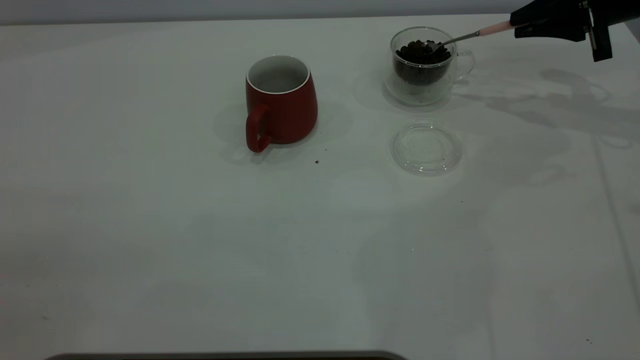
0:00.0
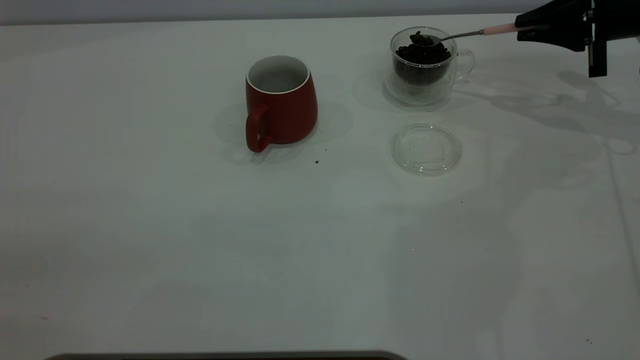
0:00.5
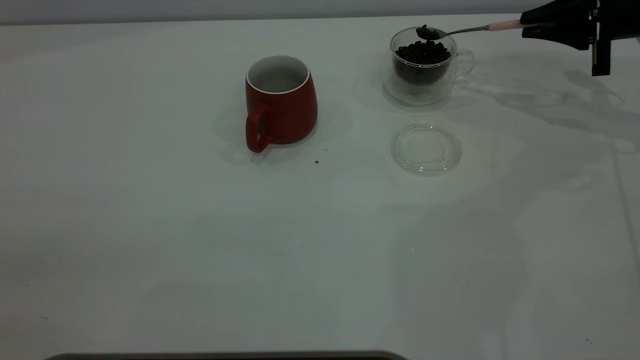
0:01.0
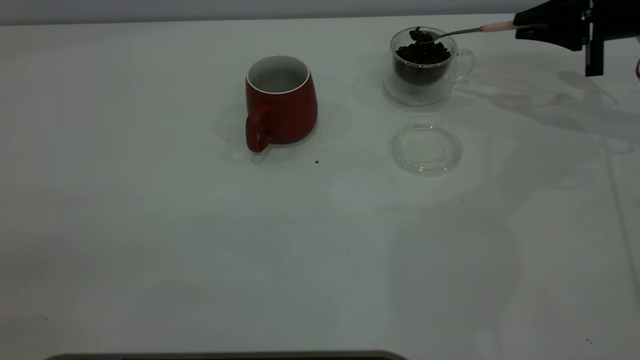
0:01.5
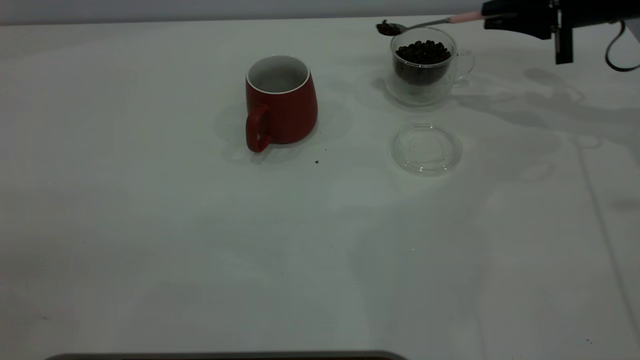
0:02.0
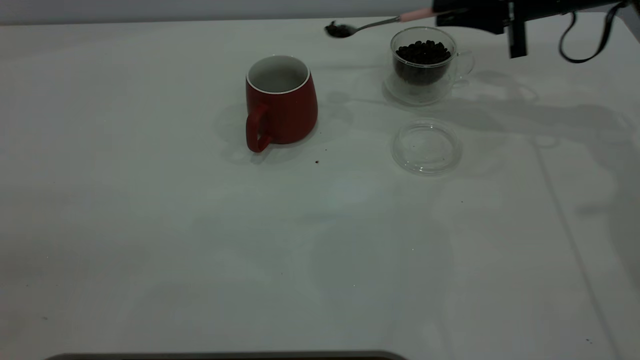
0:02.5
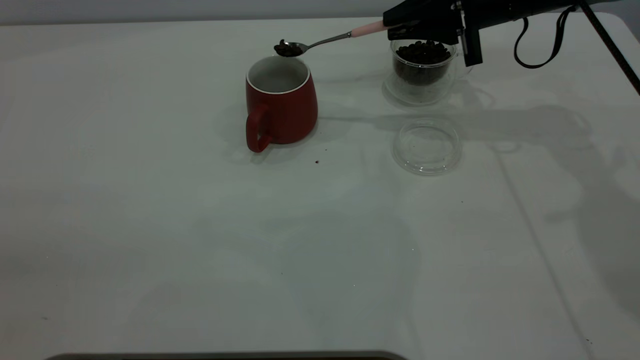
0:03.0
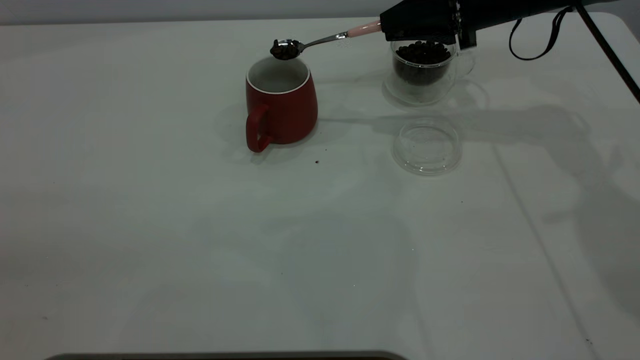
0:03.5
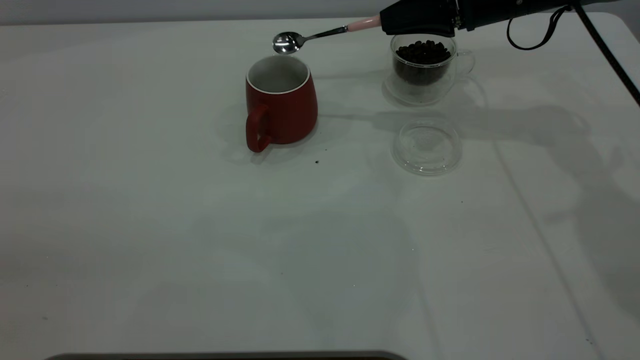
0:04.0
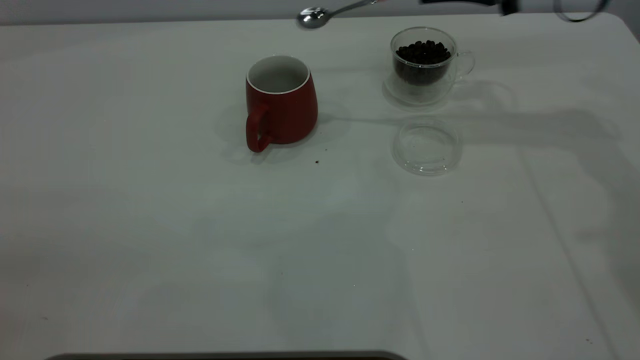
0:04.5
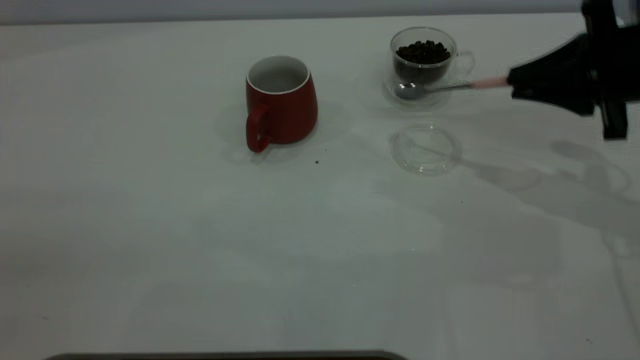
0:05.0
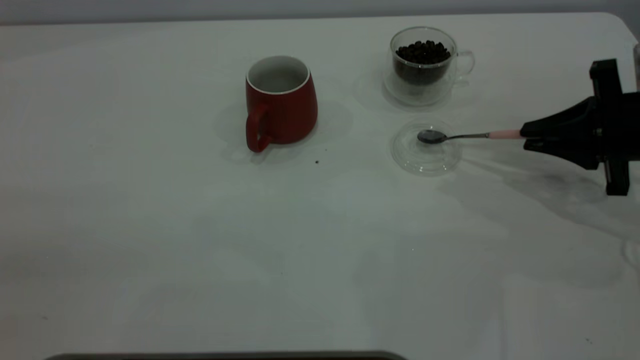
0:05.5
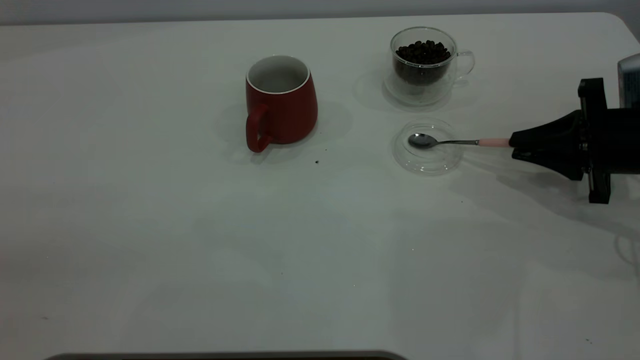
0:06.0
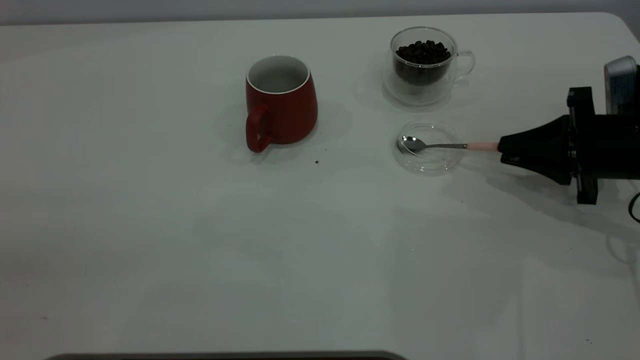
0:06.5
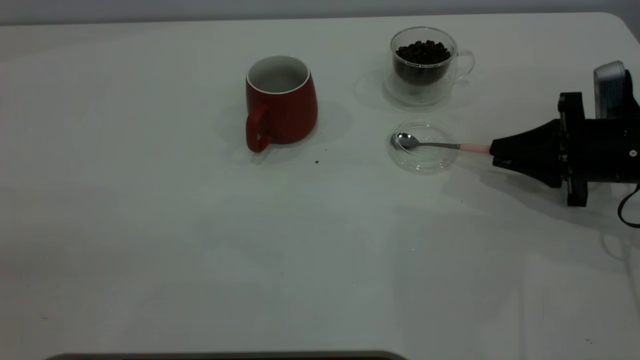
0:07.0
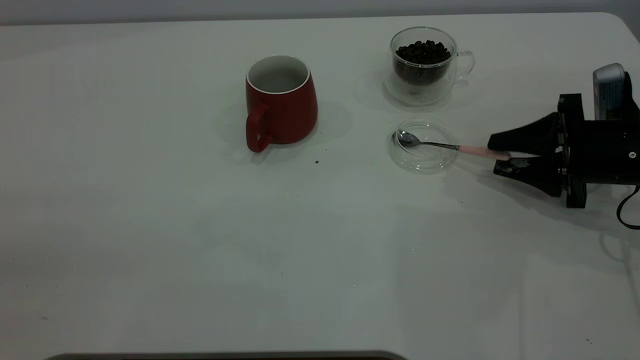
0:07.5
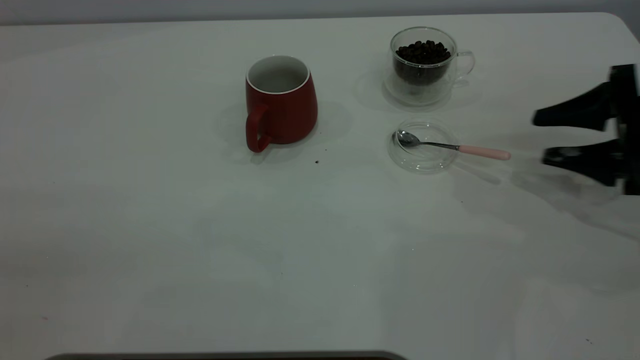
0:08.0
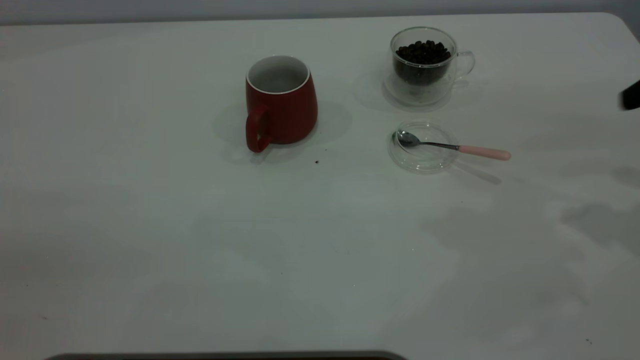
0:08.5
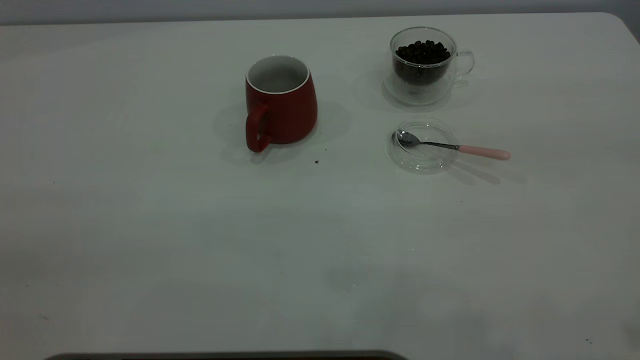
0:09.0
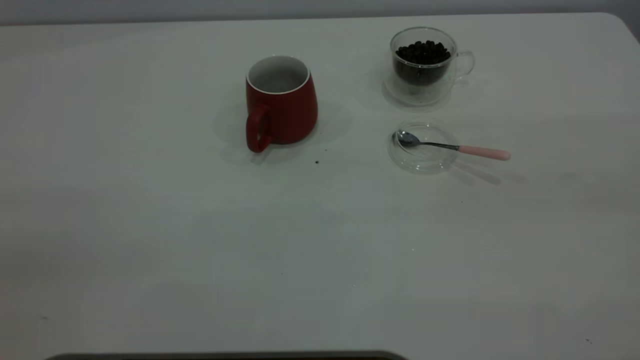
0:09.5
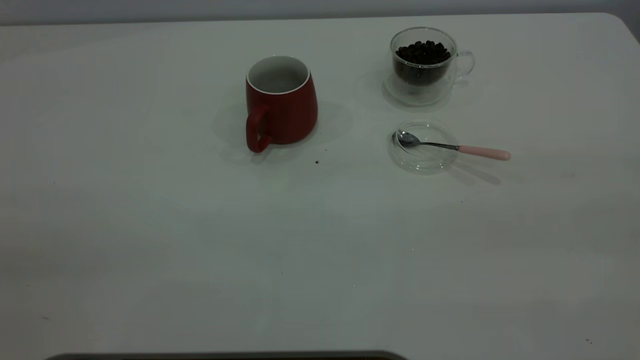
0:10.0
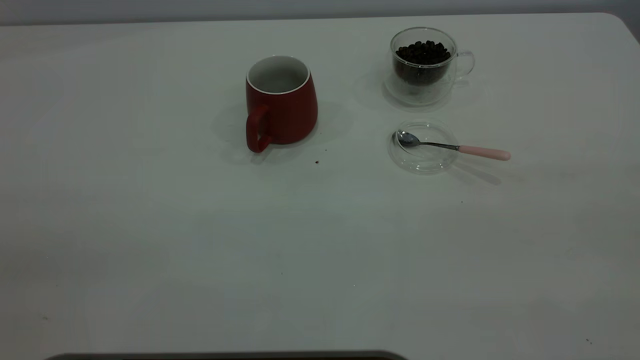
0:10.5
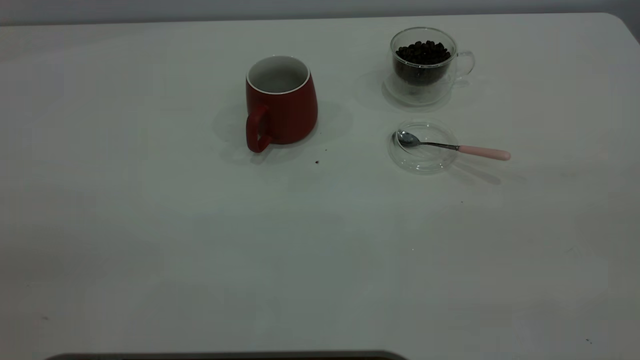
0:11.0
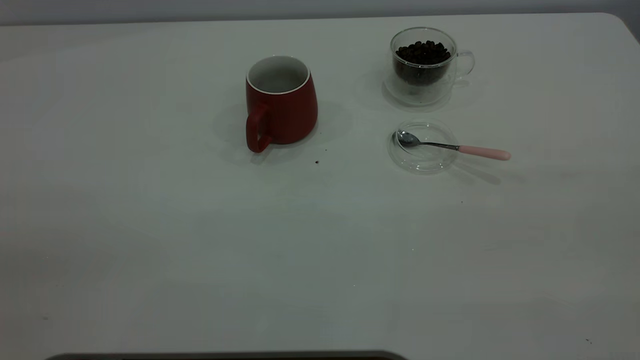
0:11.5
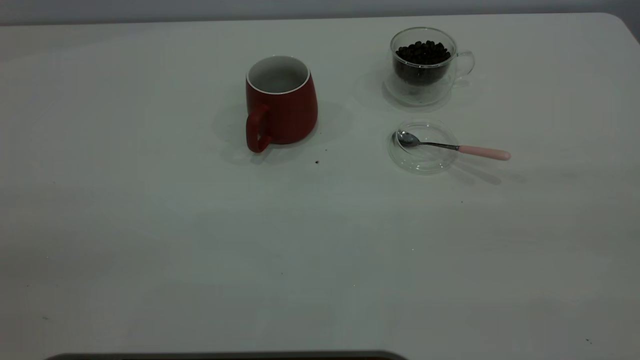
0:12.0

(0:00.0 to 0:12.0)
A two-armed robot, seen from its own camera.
Task of the whole recording: the left gripper place the red cup in the center of the table, the right gripper take the pink spoon from the cup lid and scoop out the coffee beans from the coffee cup and put them into the red cup, the right gripper put the spoon back into the cup lid.
Step, 0:00.0 - 0:04.0: Scoop a spoonful of beans into the cup.
Step, 0:04.5 - 0:07.5: Place the spoon back in its original place.
0:00.0 - 0:02.0: The grippers make only small movements.
0:02.0 - 0:04.0: The right gripper shifts some 10 cm to the left.
0:04.0 - 0:06.0: The right gripper goes approximately 20 cm backward, to the right and downward.
0:06.0 - 0:08.0: The right gripper opens.
0:08.0 - 0:10.0: The right gripper travels backward and upward by approximately 40 cm.

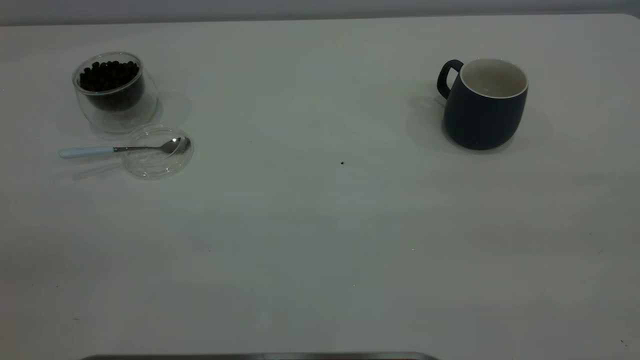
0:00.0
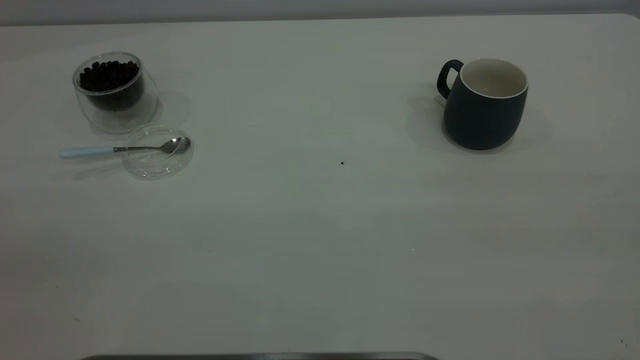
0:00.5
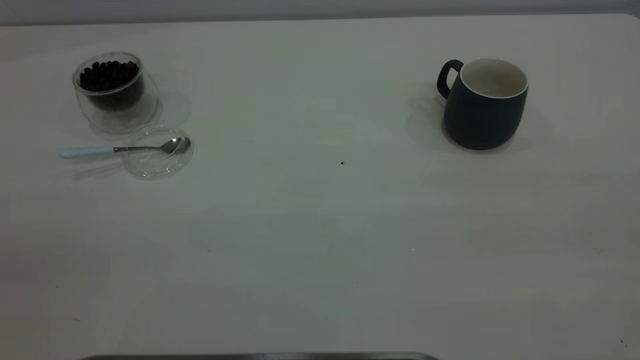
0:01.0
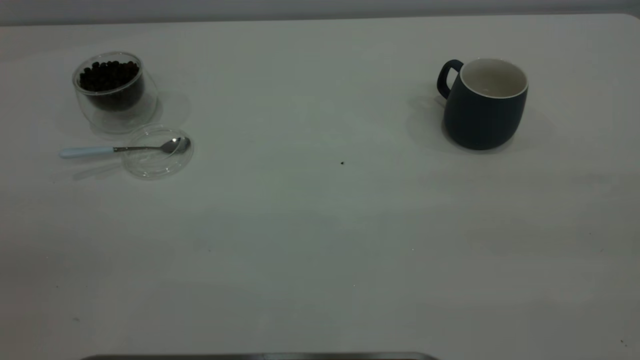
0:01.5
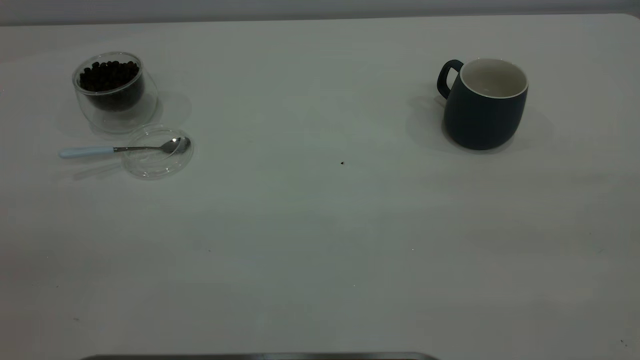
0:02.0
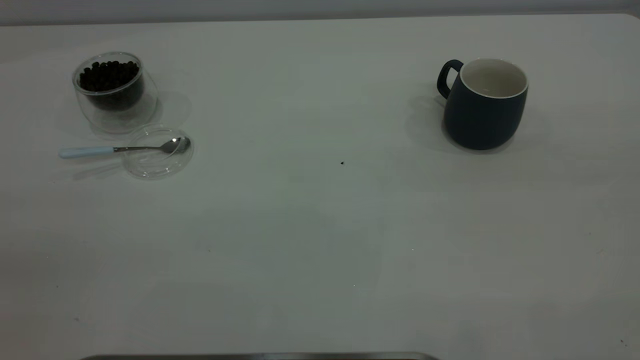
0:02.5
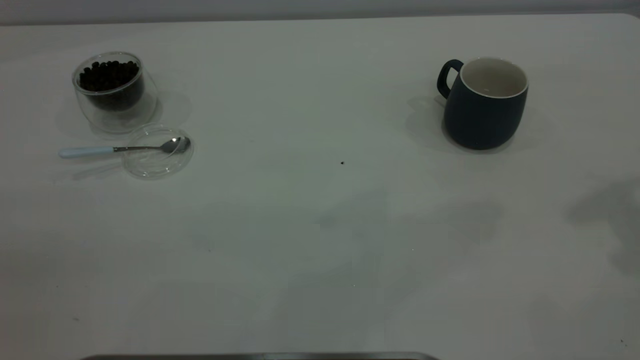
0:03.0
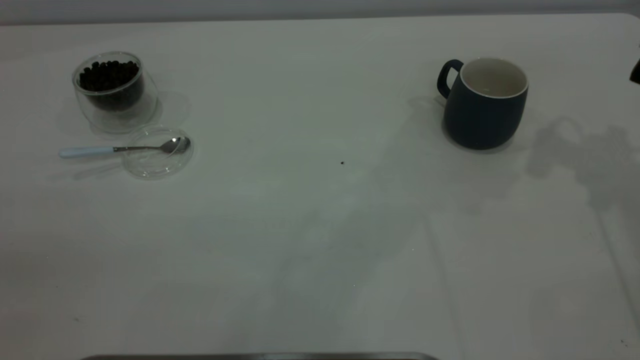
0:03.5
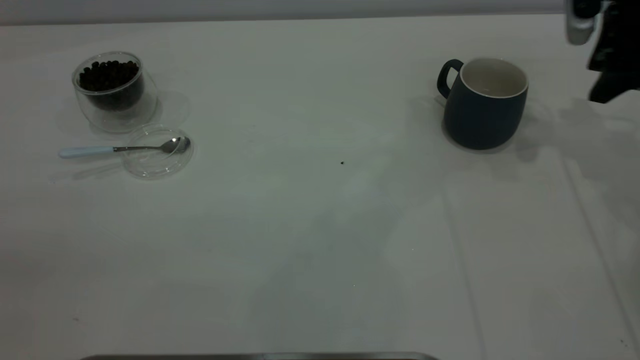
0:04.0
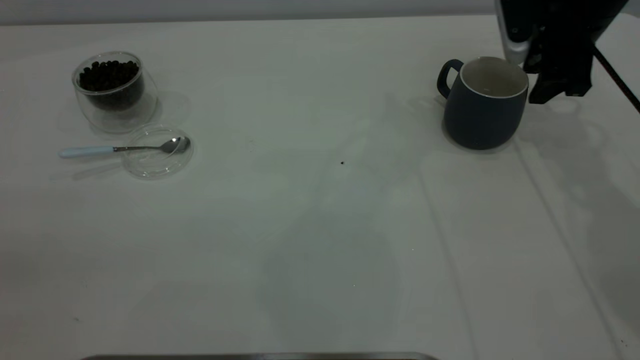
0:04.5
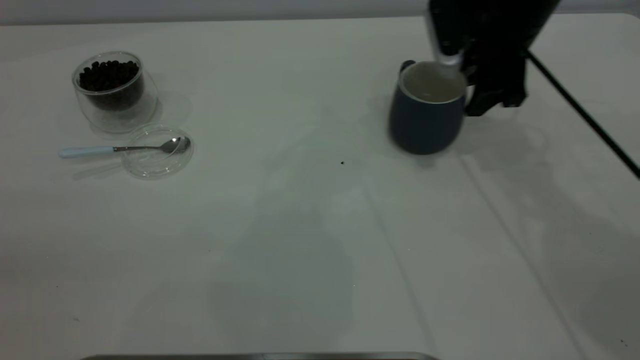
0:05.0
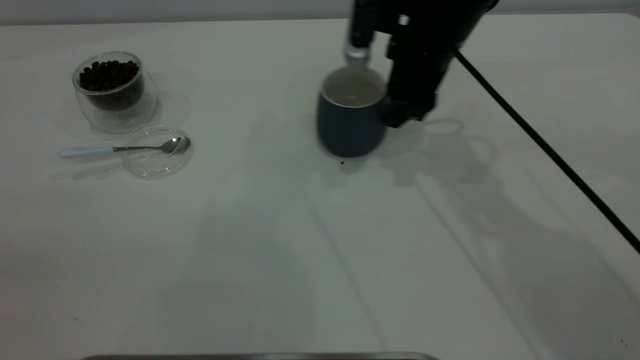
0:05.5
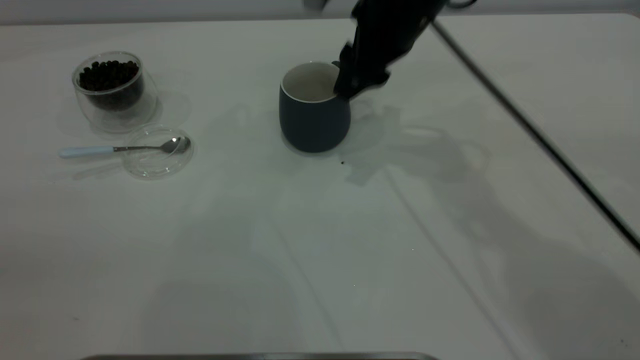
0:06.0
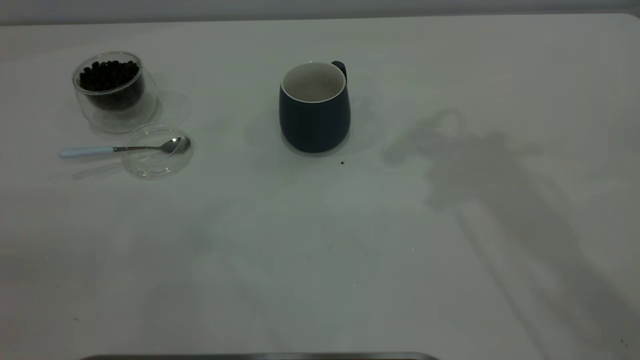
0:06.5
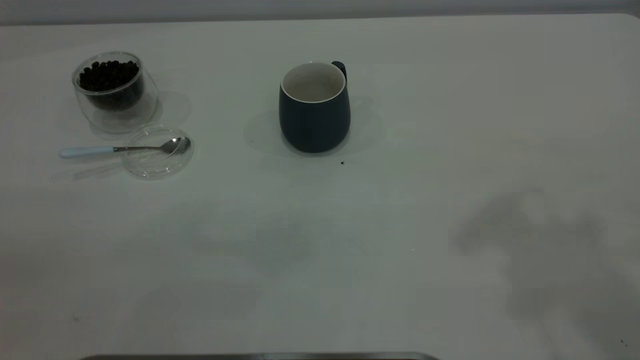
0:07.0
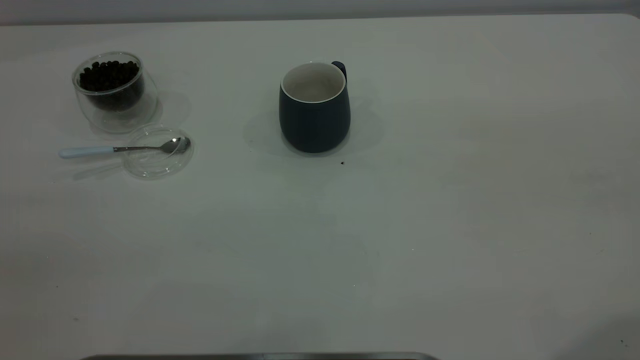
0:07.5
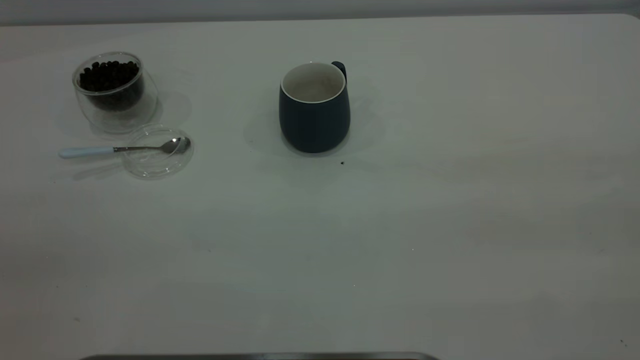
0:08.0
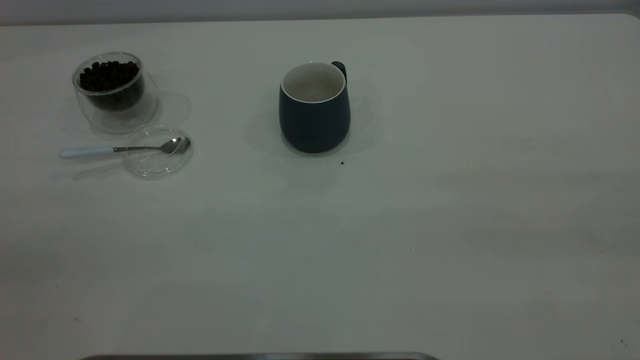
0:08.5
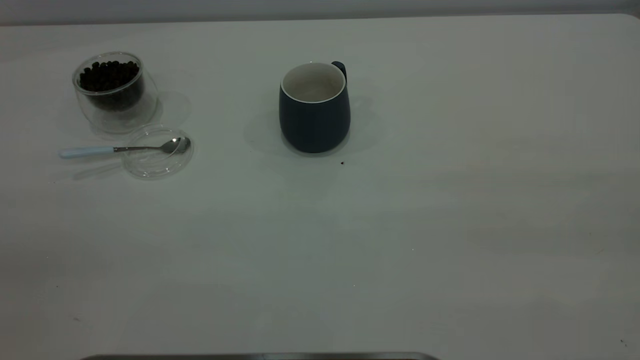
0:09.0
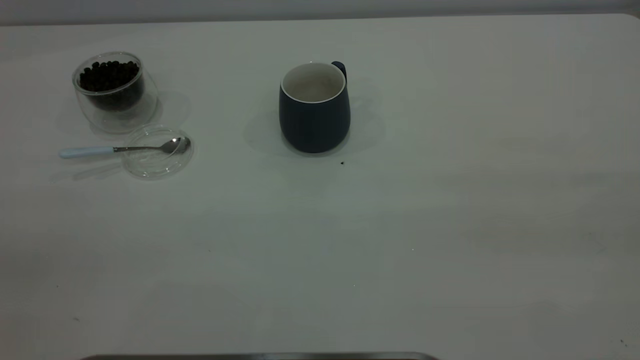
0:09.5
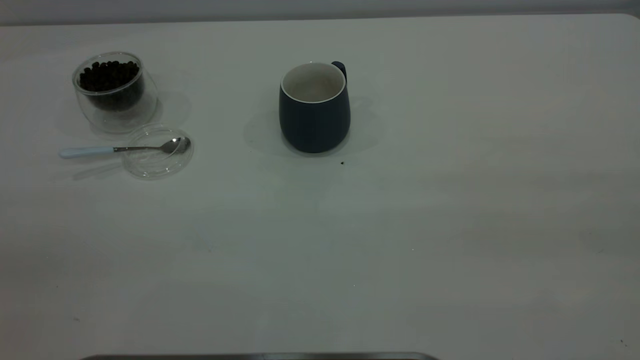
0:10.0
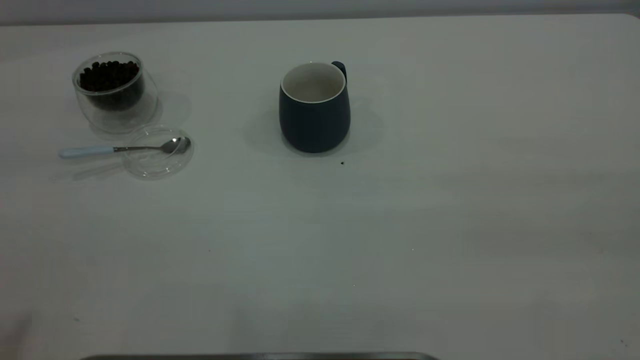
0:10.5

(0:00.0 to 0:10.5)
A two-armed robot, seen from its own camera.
Task of the whole recording: the right gripper place the grey cup in the center of the table, the left gripper take the blue spoon from the cup lid and scoop out the coffee beans from the coffee cup and put them into the grey cup, the left gripper put the spoon back into the cup lid.
Step, 0:00.0 - 0:06.0: Move the cup to the center of view.
0:00.0 - 0:02.0: Neither gripper changes place.
0:02.0 - 0:04.0: The right gripper is displaced forward and downward by roughly 50 cm.
0:04.0 - 0:06.5: The right gripper goes about 30 cm upward, to the left and backward.
